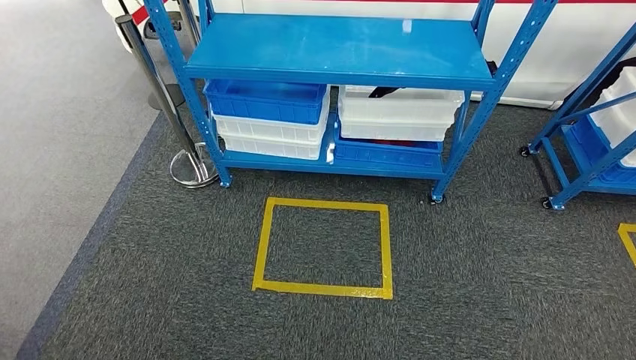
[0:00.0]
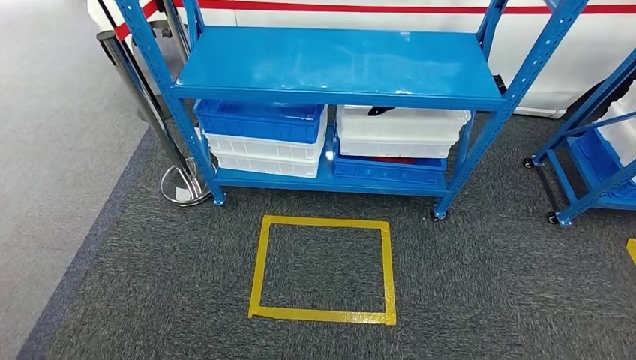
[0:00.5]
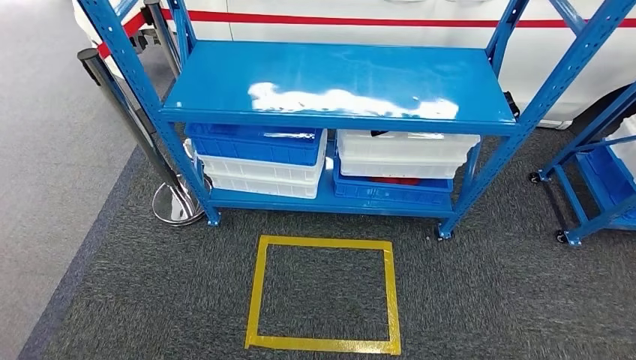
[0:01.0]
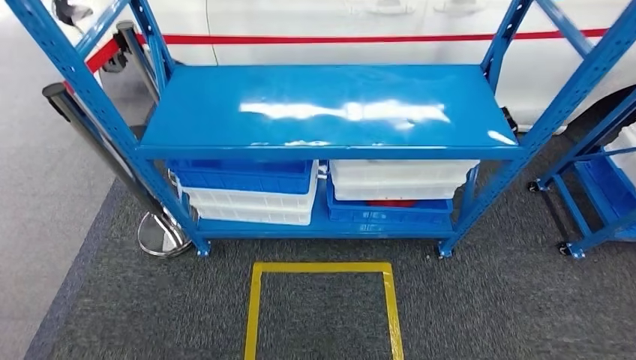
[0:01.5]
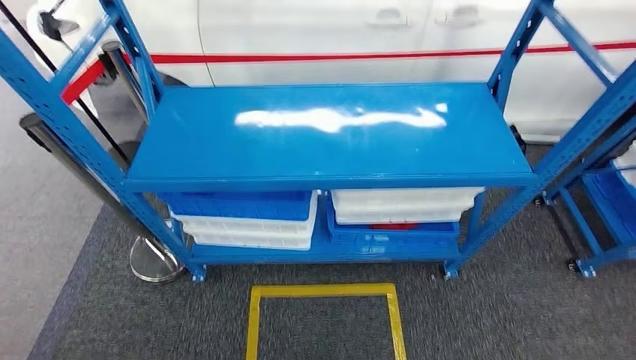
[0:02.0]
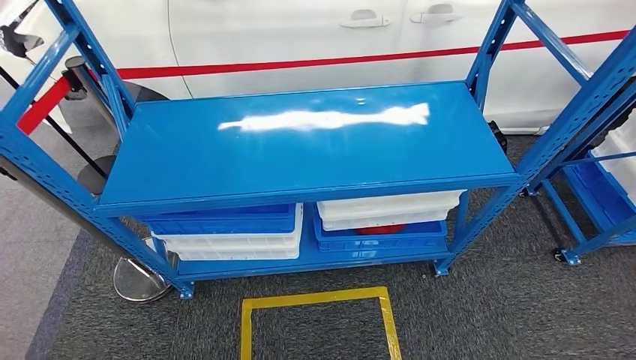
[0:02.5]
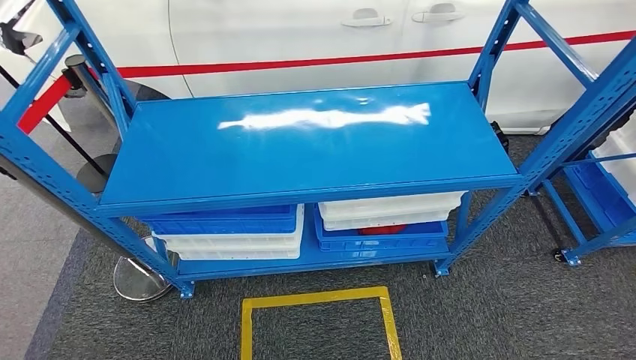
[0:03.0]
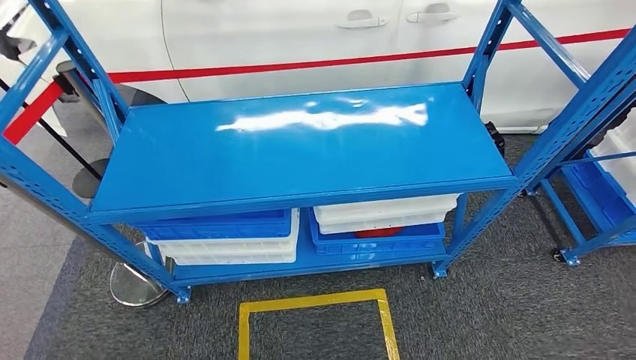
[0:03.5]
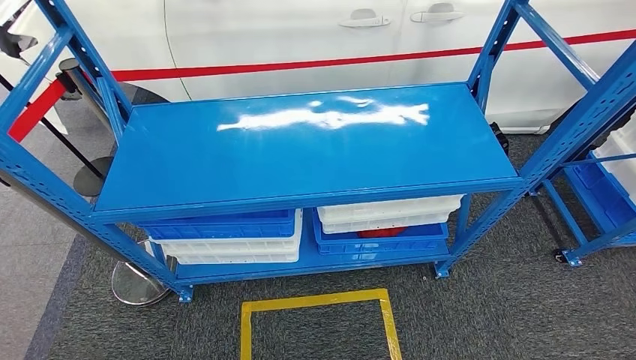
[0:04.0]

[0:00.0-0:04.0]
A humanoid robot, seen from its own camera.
Step, 0:00.0 to 0:04.0: Move to the initial position of the shelf.
